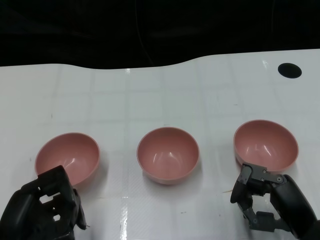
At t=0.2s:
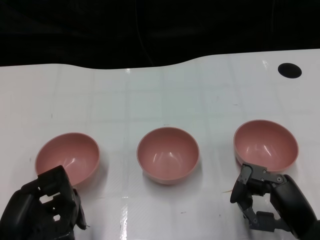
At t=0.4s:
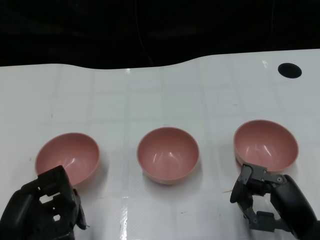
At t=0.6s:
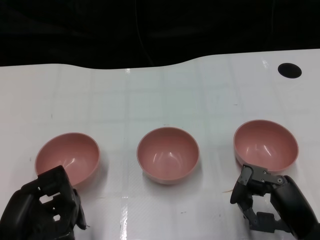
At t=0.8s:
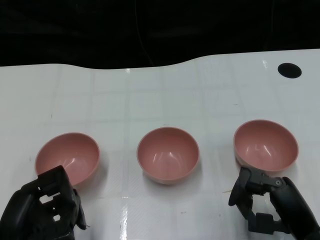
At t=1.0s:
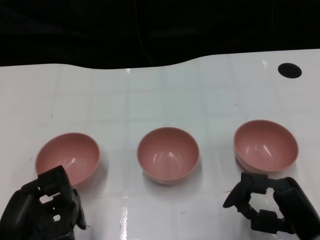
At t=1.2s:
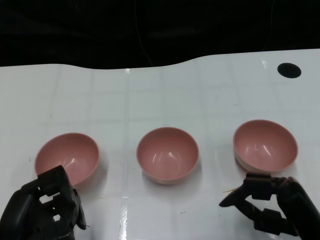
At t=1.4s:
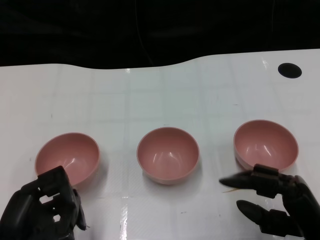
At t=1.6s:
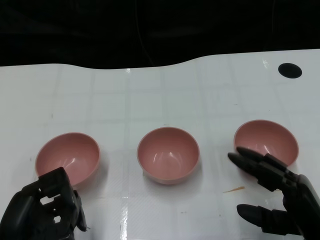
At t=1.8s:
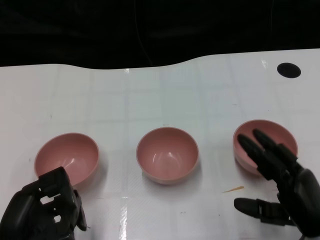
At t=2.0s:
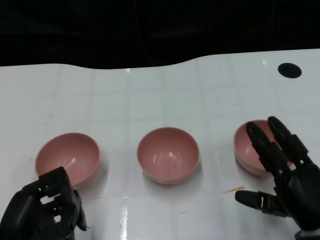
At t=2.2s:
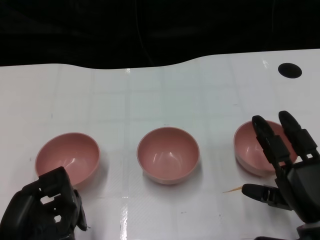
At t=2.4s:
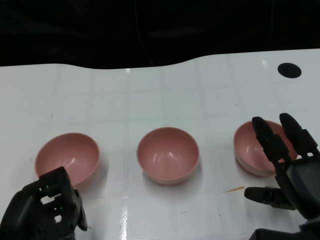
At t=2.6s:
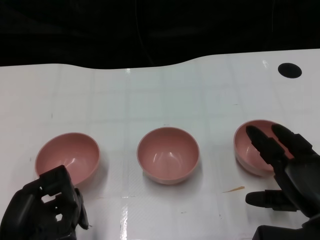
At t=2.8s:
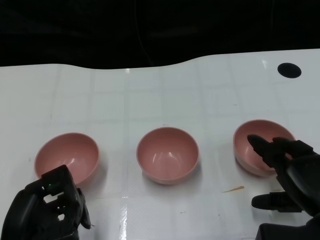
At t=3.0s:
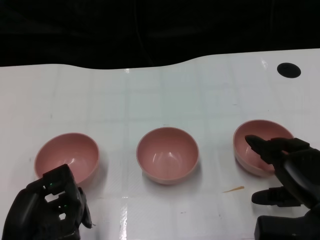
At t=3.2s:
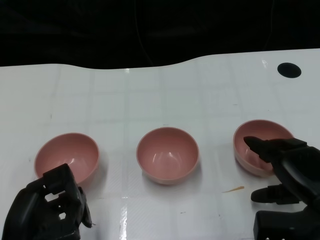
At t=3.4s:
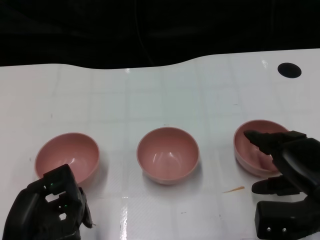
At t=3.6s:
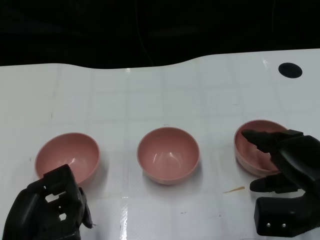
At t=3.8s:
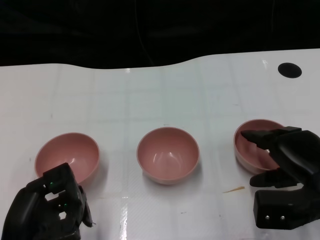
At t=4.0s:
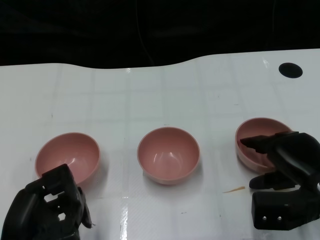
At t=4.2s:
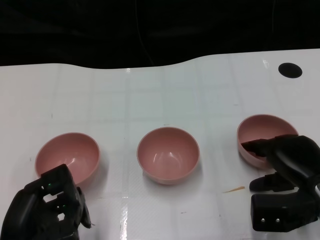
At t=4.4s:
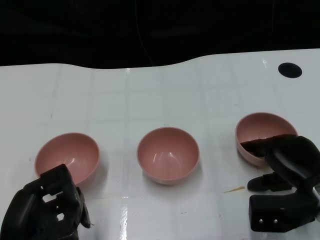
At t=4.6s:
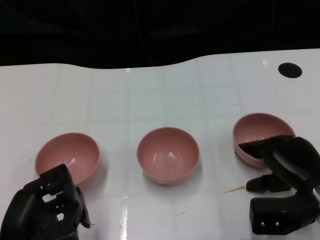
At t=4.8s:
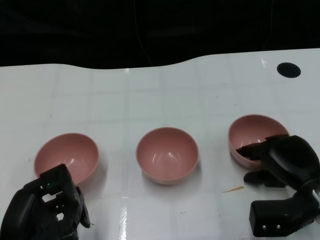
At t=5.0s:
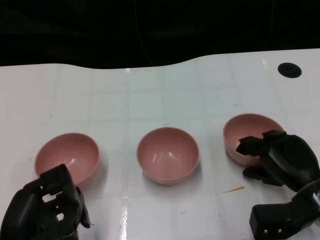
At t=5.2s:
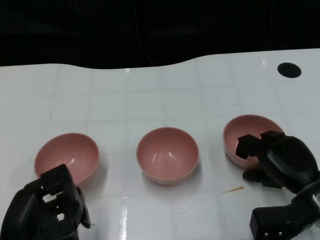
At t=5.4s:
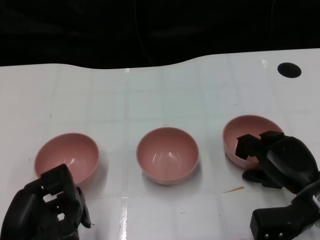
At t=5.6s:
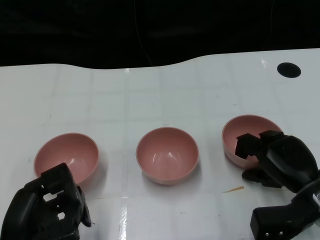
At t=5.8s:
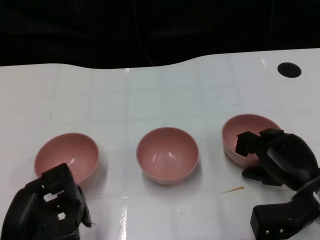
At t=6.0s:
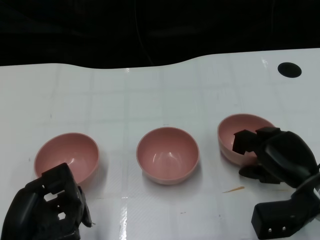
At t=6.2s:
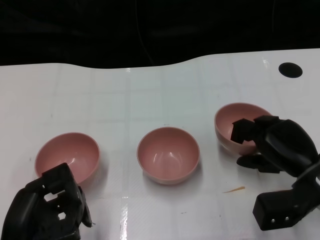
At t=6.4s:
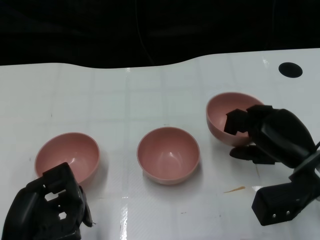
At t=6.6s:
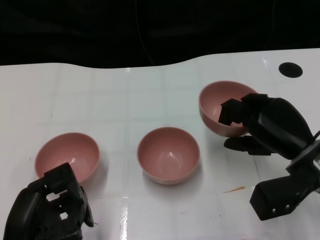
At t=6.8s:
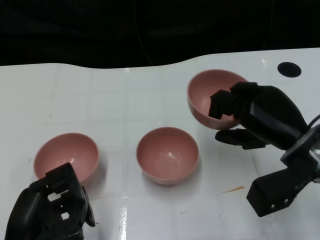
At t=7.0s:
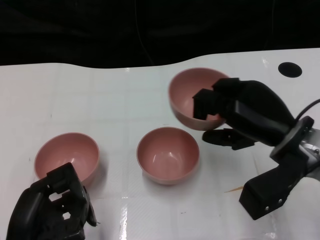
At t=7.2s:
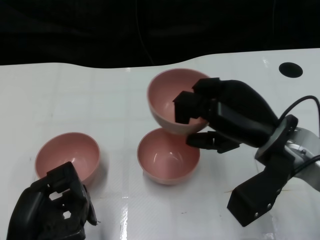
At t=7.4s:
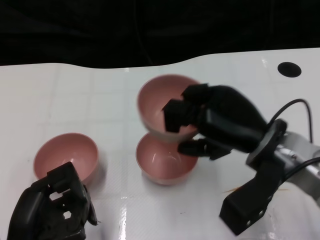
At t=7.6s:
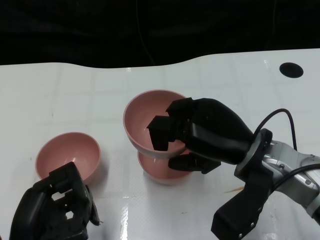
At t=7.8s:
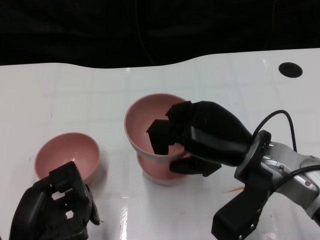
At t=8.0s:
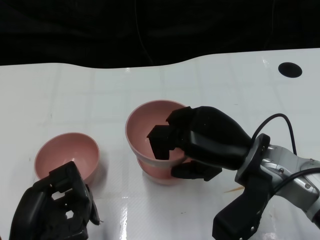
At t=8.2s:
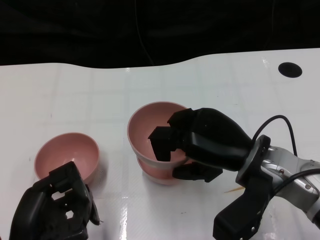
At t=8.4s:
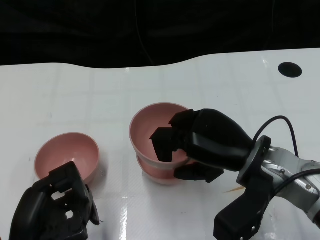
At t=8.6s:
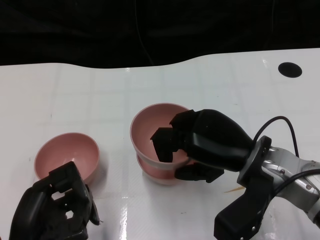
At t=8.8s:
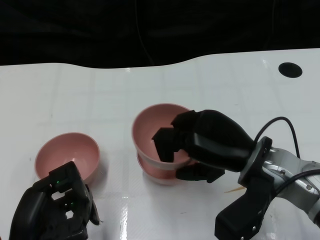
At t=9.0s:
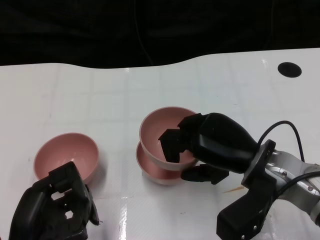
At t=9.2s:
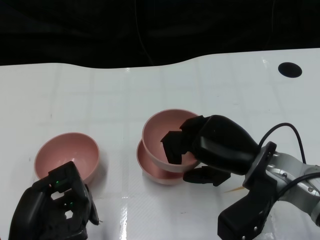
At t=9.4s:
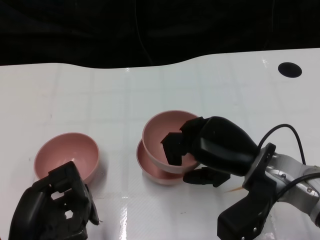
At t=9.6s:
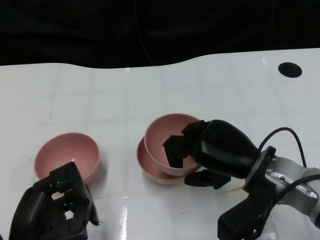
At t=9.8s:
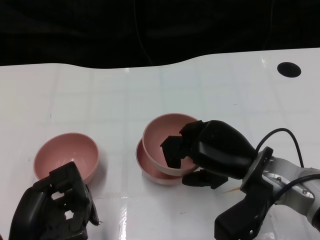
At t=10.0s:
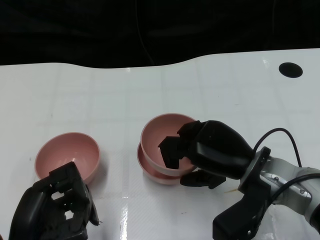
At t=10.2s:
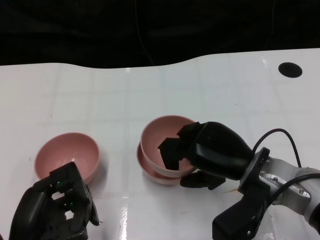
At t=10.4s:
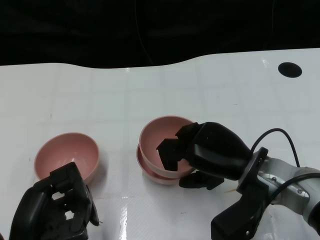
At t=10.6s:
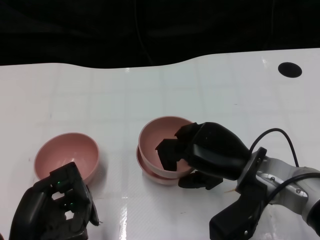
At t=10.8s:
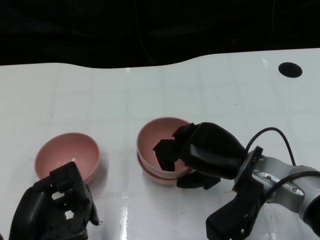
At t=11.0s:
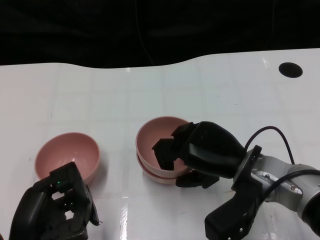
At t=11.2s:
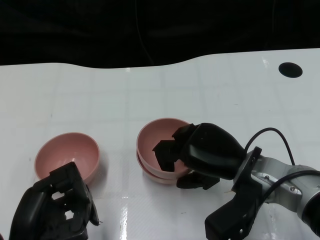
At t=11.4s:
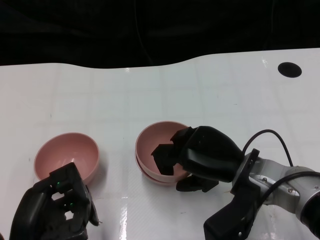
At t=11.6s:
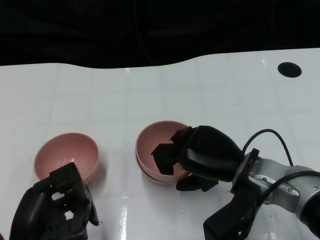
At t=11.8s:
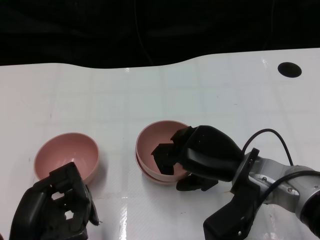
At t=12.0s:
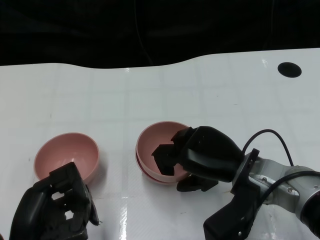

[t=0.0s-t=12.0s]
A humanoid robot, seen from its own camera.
Task of the whole recording: Pick up the bowl on one side of the table and place it on top of the middle bowl, then pick up the bowl on the other side of the table and place it on top of the middle bowls.
Step, t=0.8s to t=6.0s: Grasp the bowl on the right with the right gripper.
t=3.0s to t=6.0s: The hands stay close to where they were, moving slightly.
t=6.0s to t=7.6s: The right hand travels upward and to the left by approximately 15 cm.
t=7.6s to t=10.4s: There are only small adjustments of the hands.
t=10.4s to t=12.0s: Neither hand changes place.

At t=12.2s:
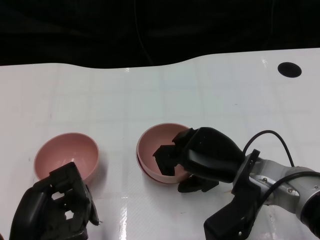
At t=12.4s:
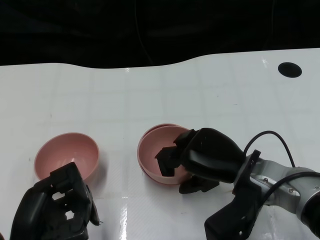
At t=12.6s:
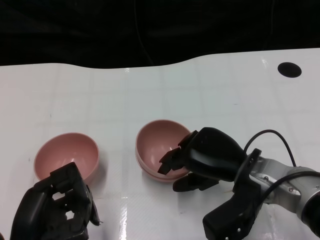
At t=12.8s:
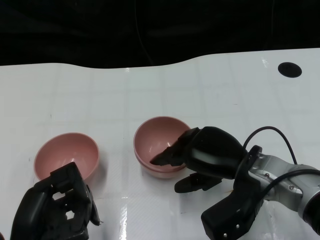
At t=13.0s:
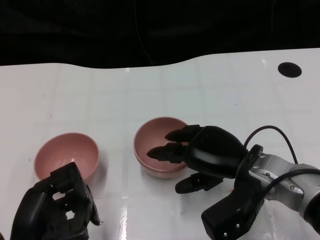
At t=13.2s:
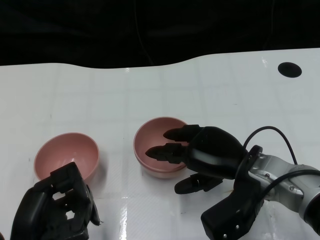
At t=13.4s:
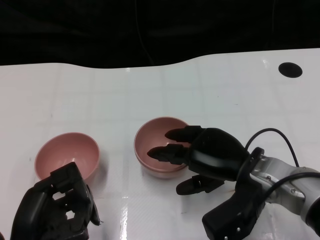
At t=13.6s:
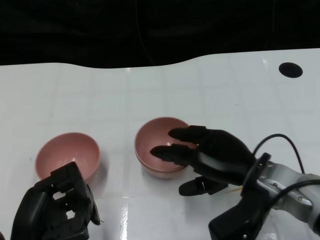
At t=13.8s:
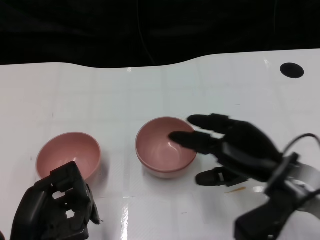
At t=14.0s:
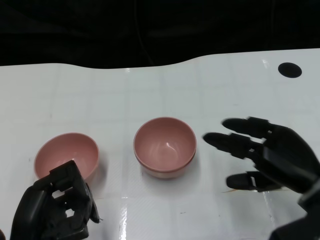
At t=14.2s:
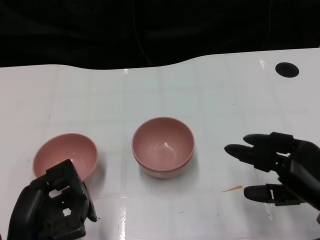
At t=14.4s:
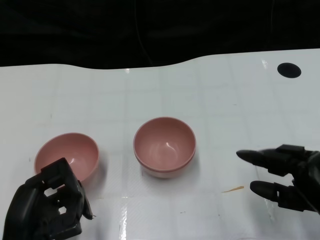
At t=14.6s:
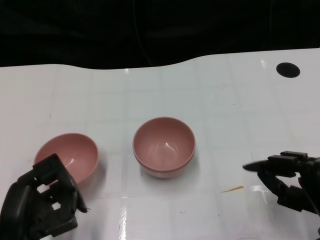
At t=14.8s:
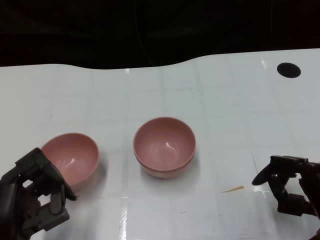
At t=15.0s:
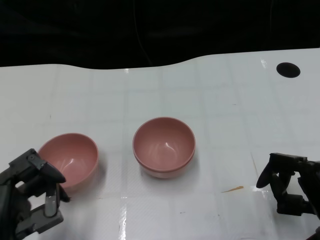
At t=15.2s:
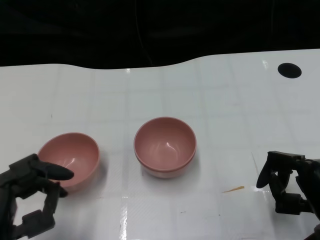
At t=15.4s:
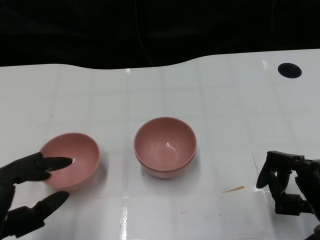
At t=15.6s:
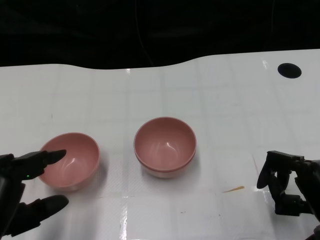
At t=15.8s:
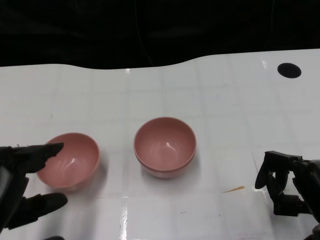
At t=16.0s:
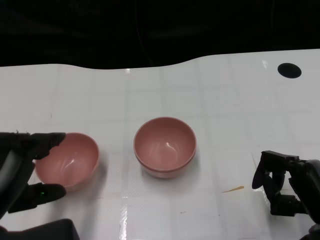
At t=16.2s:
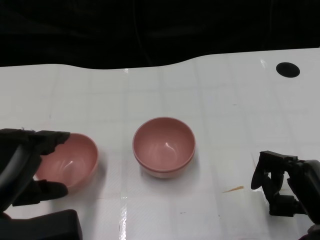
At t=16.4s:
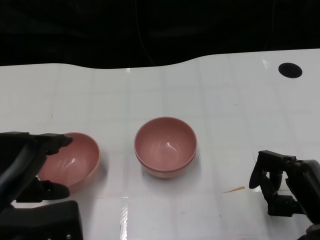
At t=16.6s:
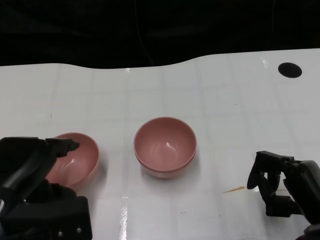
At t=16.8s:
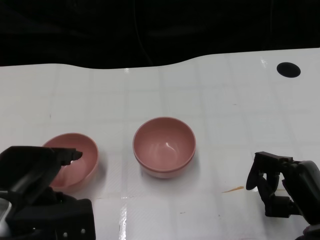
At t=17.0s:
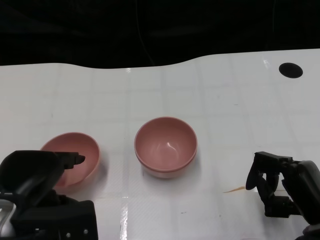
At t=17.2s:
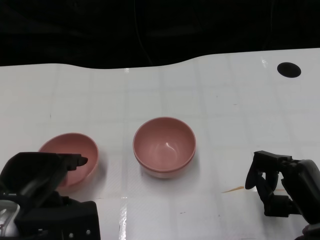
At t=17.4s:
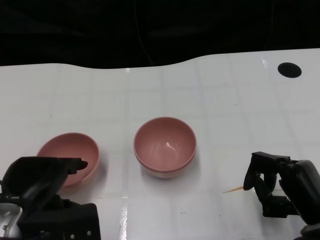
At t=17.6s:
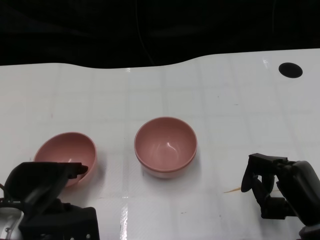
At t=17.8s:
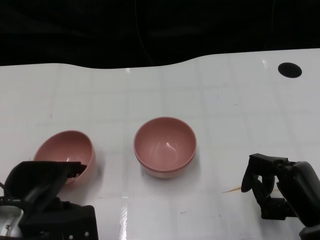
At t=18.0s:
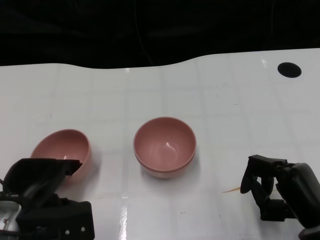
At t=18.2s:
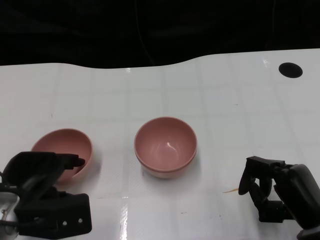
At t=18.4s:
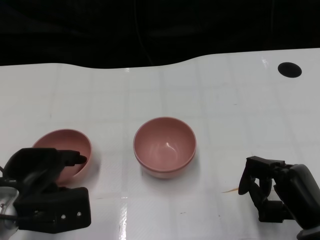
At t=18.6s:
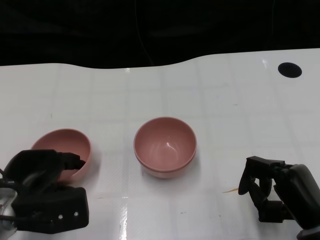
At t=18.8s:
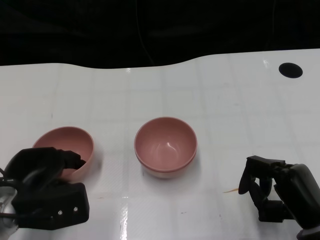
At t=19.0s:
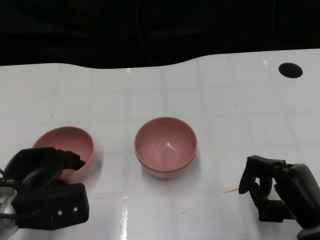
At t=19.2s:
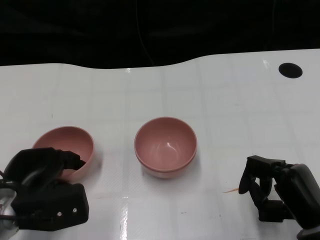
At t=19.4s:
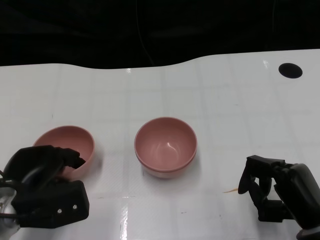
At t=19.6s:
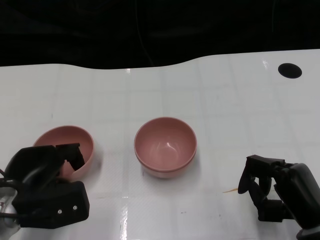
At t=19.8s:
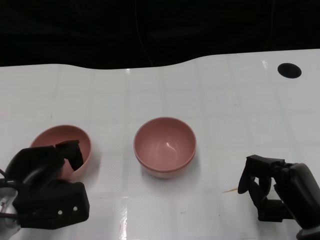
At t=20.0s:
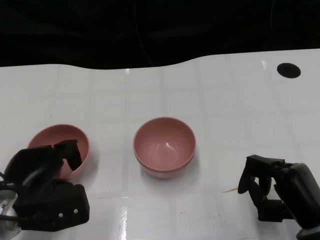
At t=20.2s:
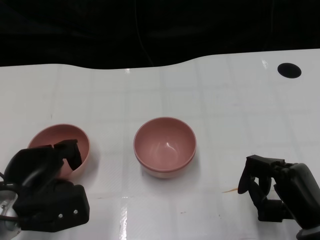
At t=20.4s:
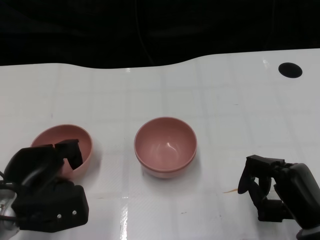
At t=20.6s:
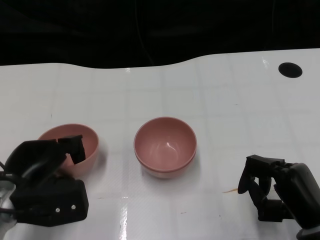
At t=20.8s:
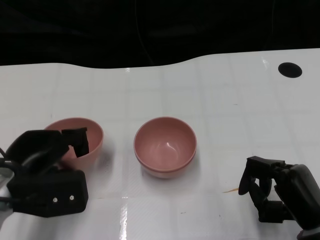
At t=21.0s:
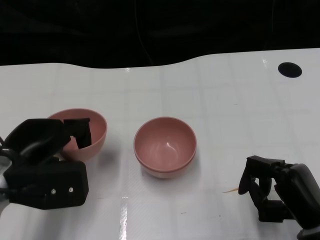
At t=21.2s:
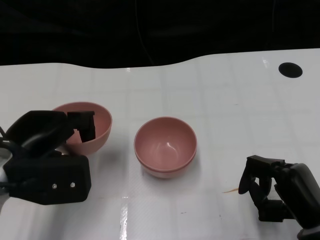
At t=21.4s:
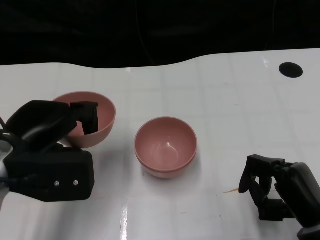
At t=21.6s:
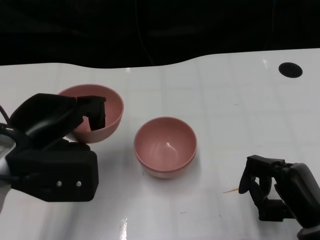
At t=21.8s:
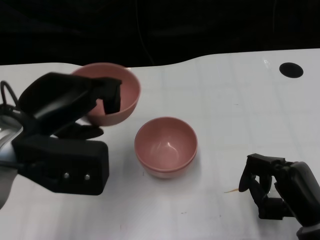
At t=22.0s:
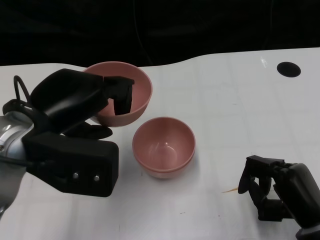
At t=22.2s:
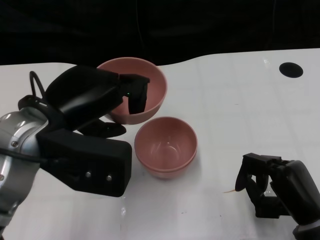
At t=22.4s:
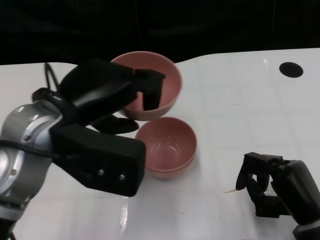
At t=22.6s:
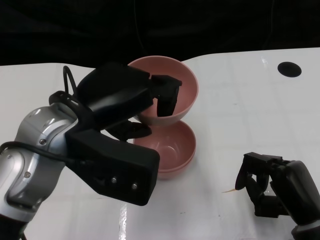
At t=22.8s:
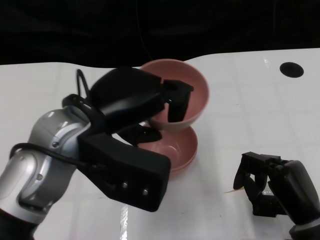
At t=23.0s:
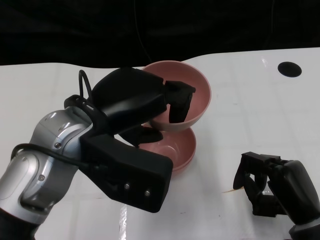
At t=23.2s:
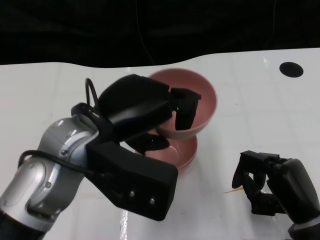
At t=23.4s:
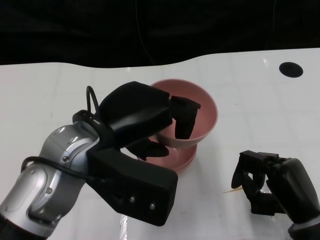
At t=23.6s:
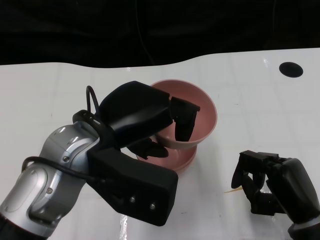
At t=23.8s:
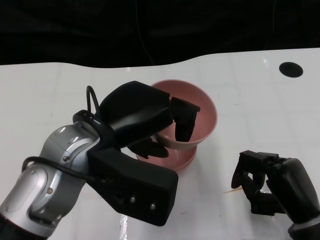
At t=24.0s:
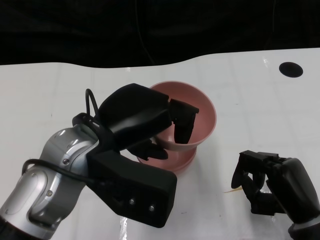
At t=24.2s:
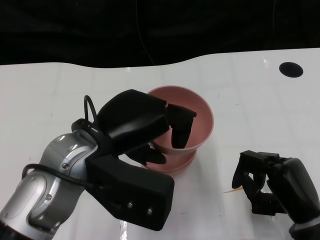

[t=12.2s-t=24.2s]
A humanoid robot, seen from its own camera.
Task of the whole recording: Pick up the bowl on one side of the table and place it on top of the middle bowl, then pick up the bowl on the other side of the table and place it on top of the middle bowls.
Step, t=14.2s to t=20.6s: Grasp the bowl on the left with the left gripper.
t=12.2s to t=13.8s: The hands stay close to where they were, moving slightly.
t=13.8s to t=15.2s: The right hand heads to the right, backward and downward, covering some 10 cm.
t=15.2s to t=16.6s: The left hand moves forward, some 5 cm.
t=16.6s to t=18.2s: The left hand moves downward, some 5 cm.
t=18.2s to t=19.8s: The hands move only a little.
t=19.8s to t=21.2s: The left hand moves upward, approximately 10 cm.
t=21.2s to t=22.6s: The left hand heads to the right and upward, covering roughly 10 cm.
